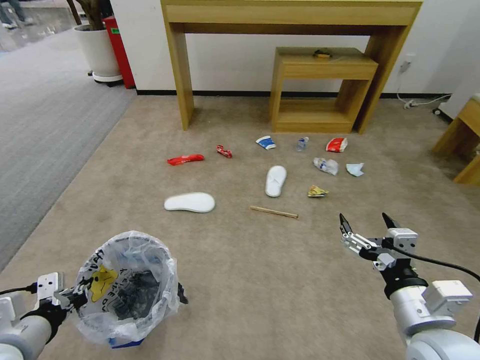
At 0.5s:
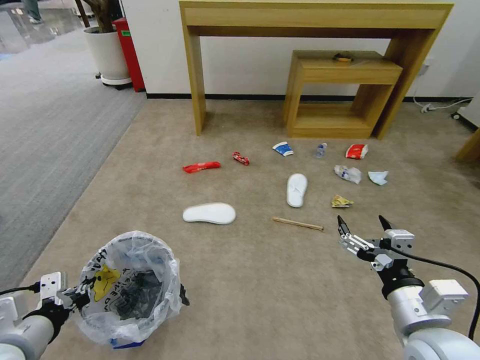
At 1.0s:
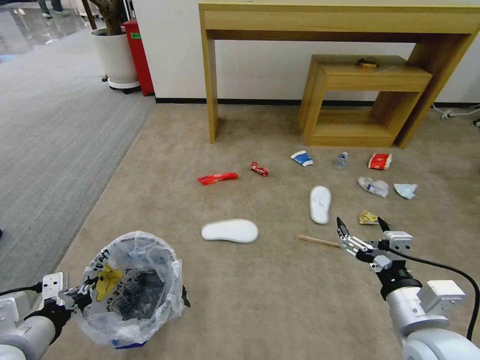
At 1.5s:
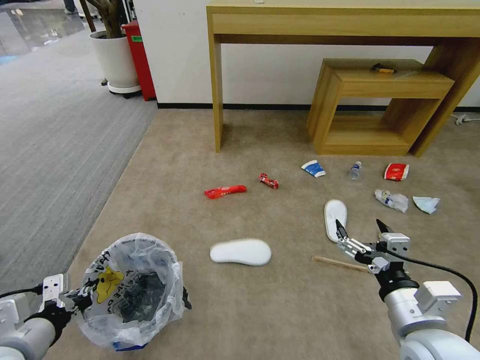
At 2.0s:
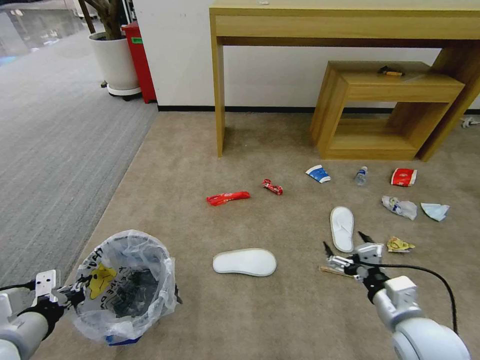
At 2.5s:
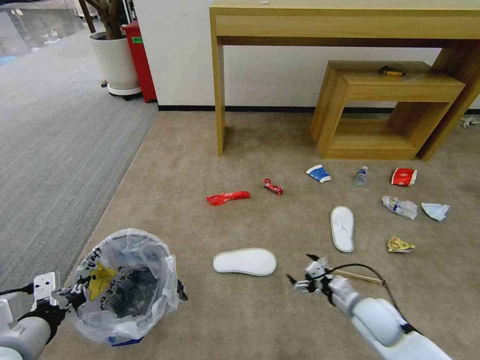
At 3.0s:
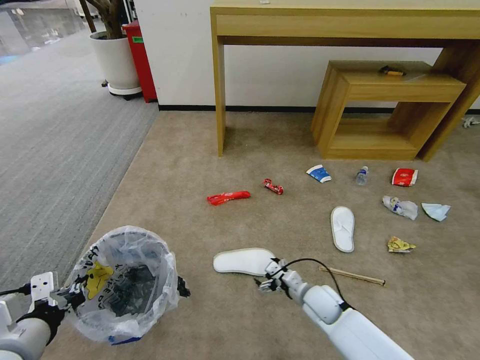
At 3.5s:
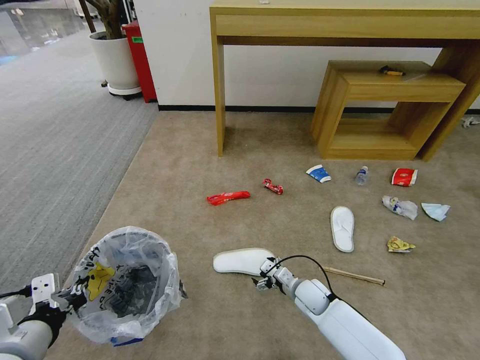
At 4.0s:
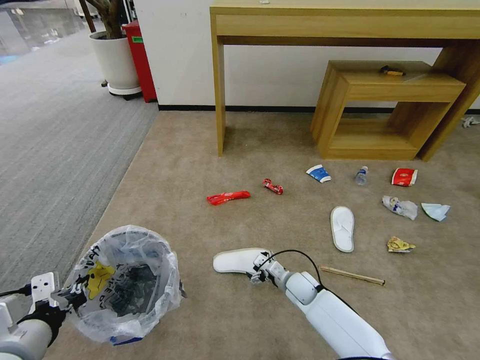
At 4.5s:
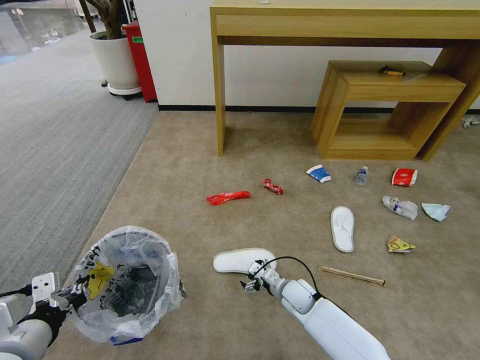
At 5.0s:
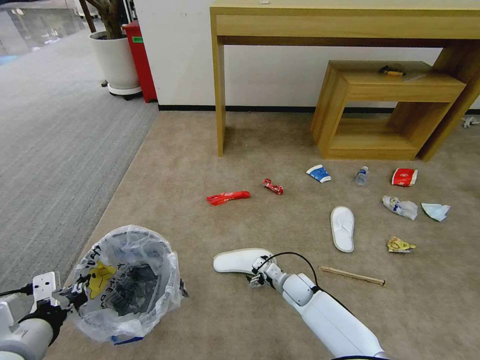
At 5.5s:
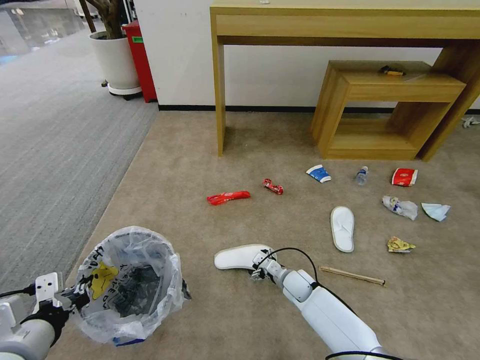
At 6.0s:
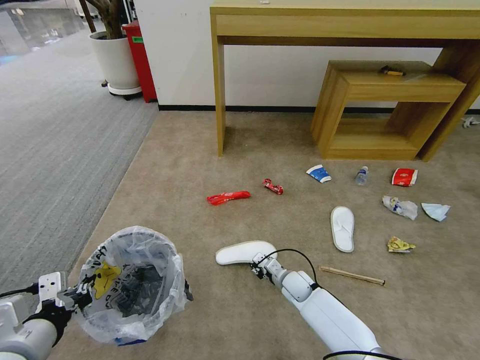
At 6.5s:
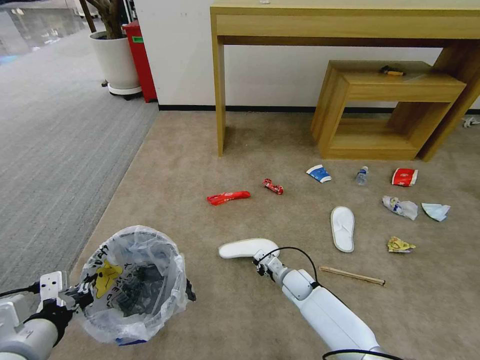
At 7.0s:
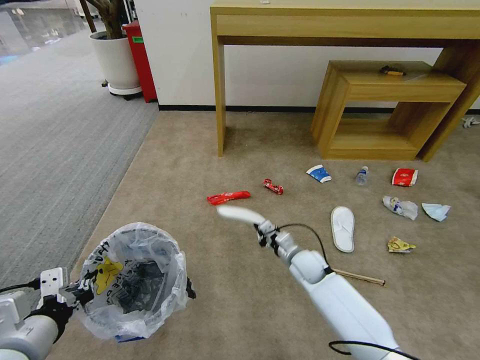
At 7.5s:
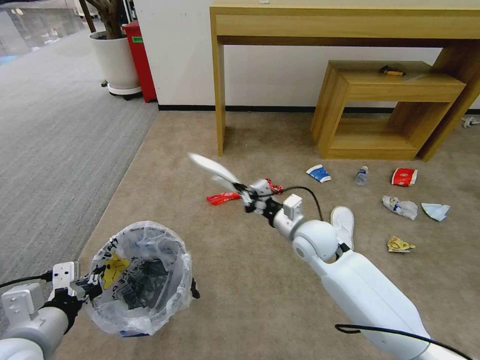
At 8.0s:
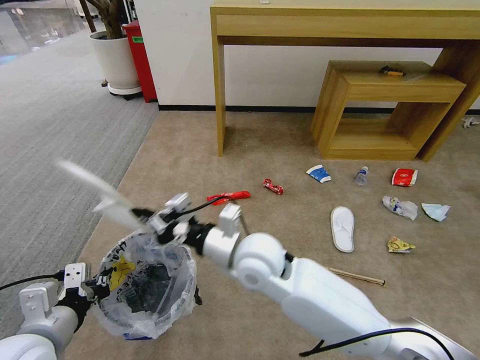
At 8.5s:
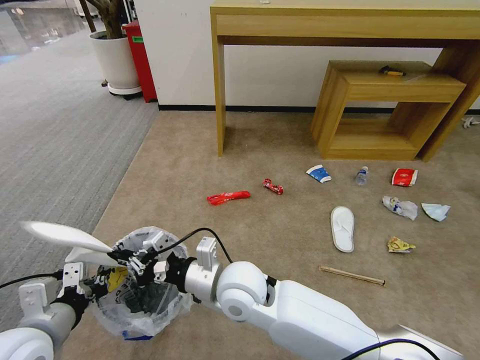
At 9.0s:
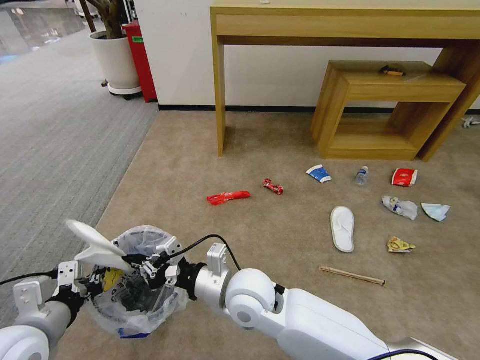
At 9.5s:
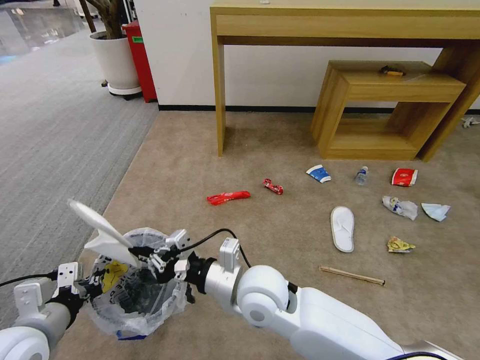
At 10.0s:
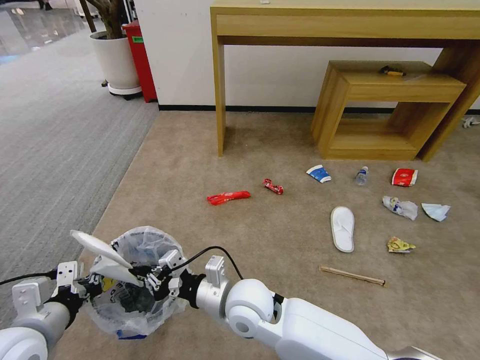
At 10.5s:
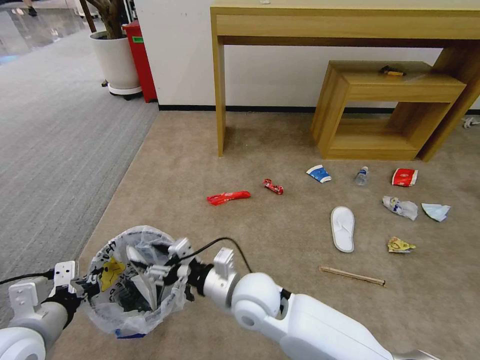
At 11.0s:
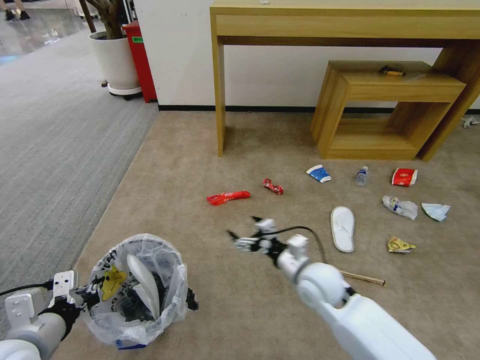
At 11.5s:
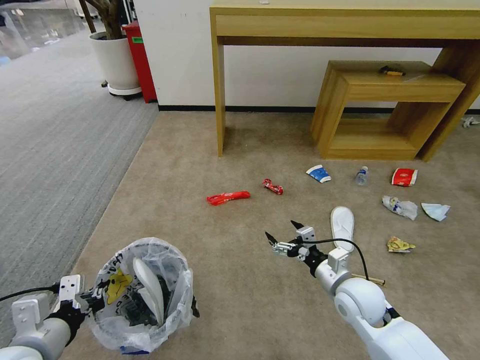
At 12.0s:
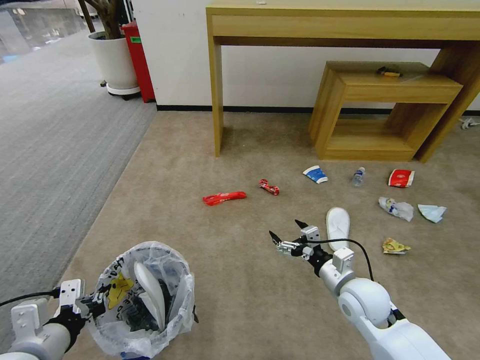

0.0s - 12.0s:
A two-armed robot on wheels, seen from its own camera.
Task of the whole recording: Pick up the trash bin and place the garbage on the floor into it.
0.0s - 2.0s: The right gripper is displaced downward by about 5 cm.
2.0s - 4.0s: The right gripper goes some 30 cm downward, forward and to the left; the left gripper shifts by approximately 5 cm.
4.0s - 6.0s: The right gripper closes up.
6.0s - 8.0s: The right gripper travels upward and to the left by approximately 35 cm, and closes.
8.0s - 10.0s: The right gripper heads downward and backward, covering about 10 cm.
10.0s - 12.0s: The right gripper heads to the right, covering about 25 cm, and opens its fingers.

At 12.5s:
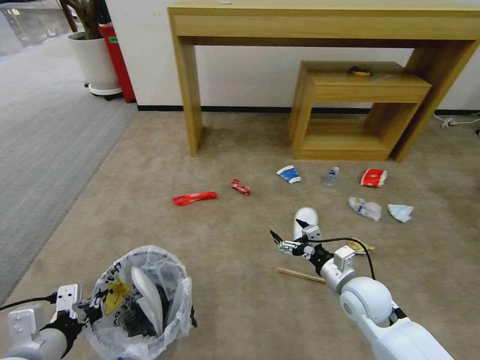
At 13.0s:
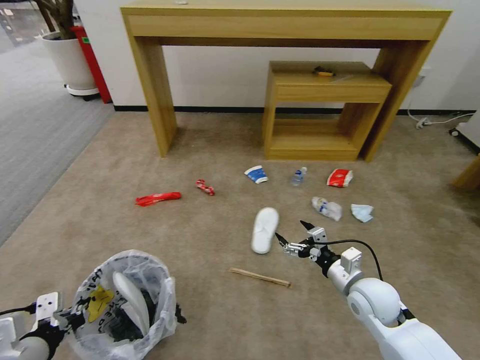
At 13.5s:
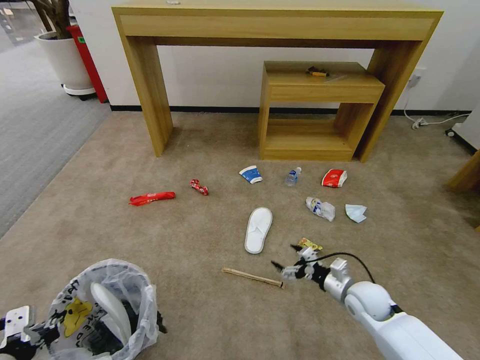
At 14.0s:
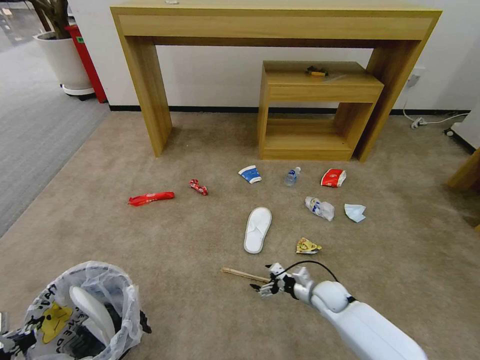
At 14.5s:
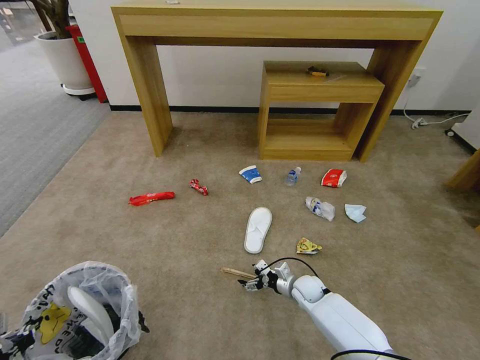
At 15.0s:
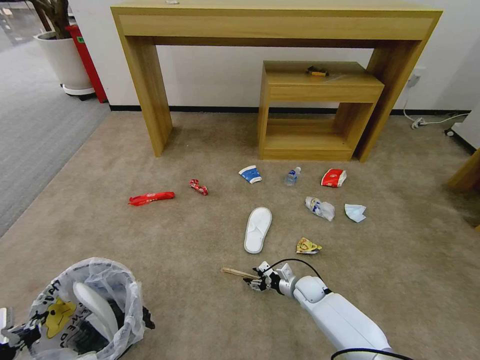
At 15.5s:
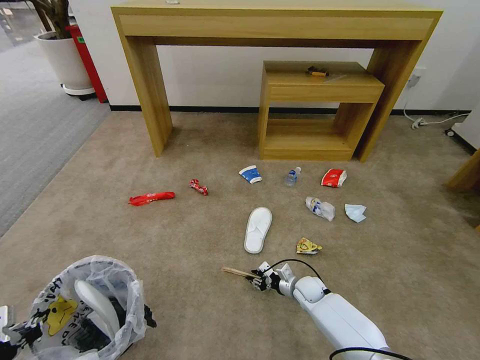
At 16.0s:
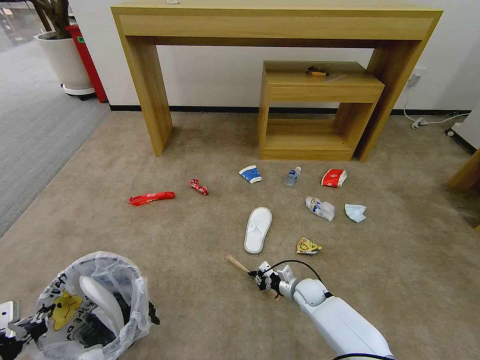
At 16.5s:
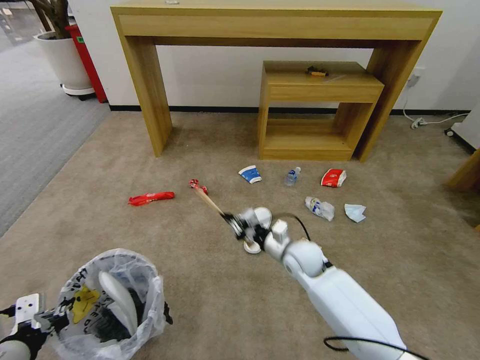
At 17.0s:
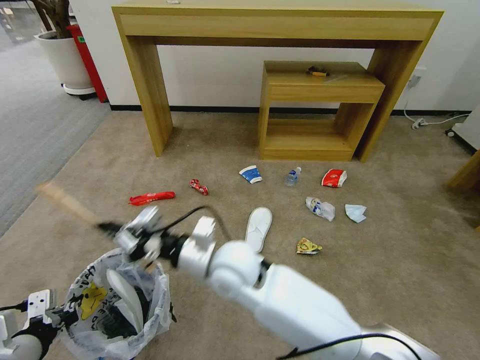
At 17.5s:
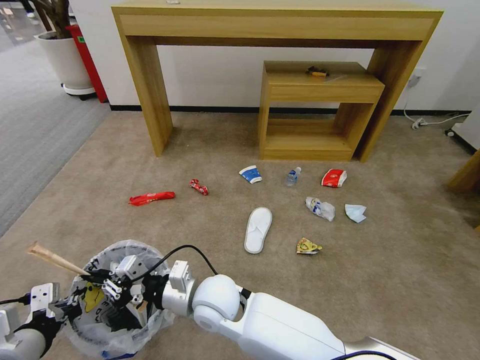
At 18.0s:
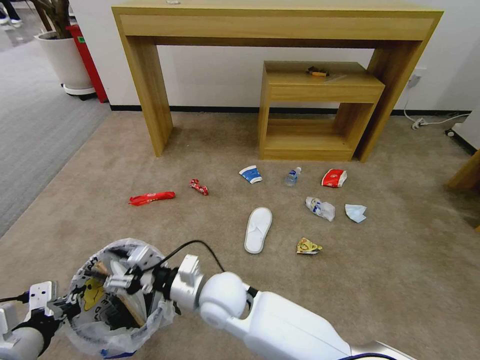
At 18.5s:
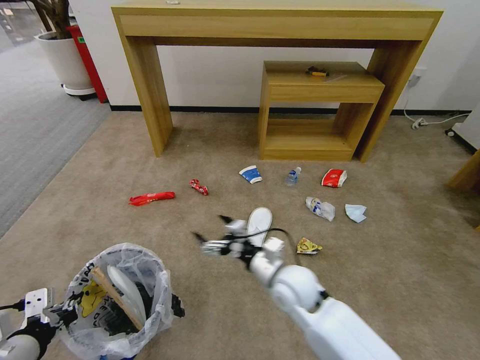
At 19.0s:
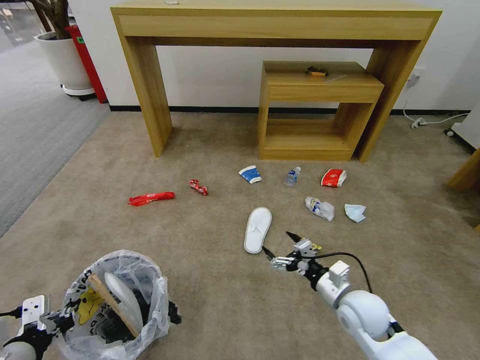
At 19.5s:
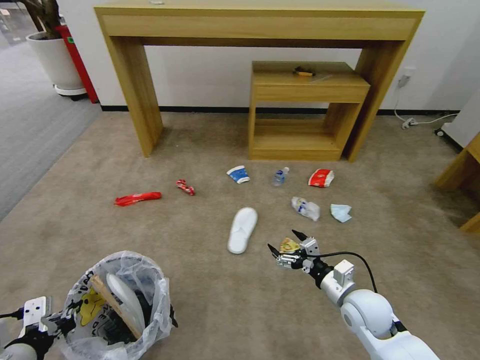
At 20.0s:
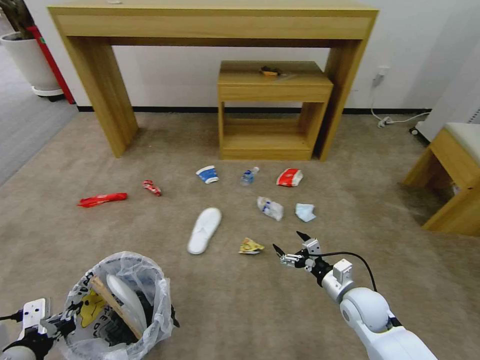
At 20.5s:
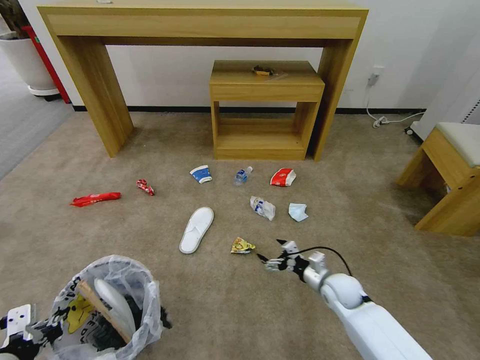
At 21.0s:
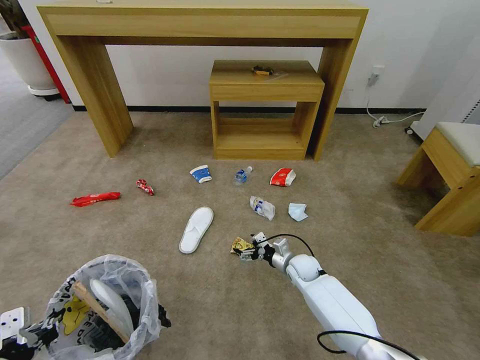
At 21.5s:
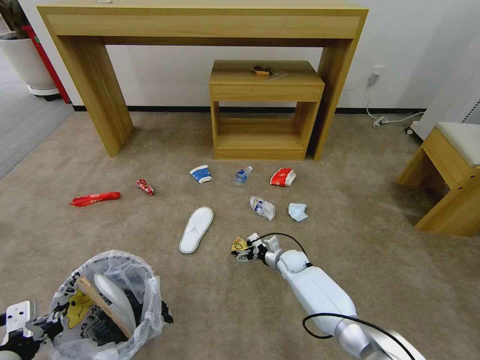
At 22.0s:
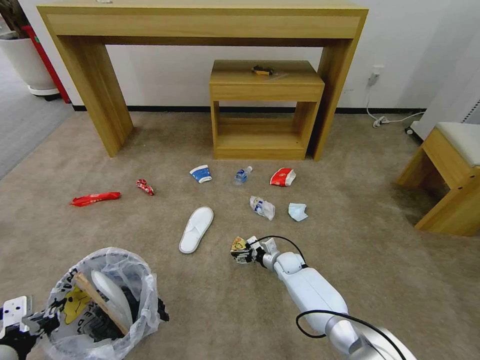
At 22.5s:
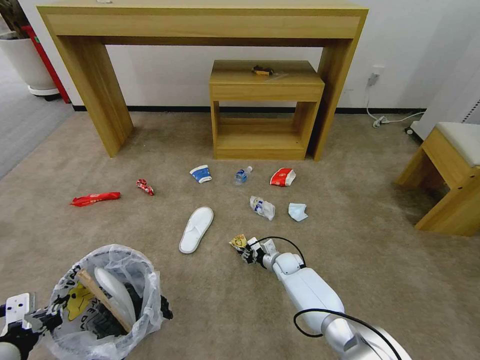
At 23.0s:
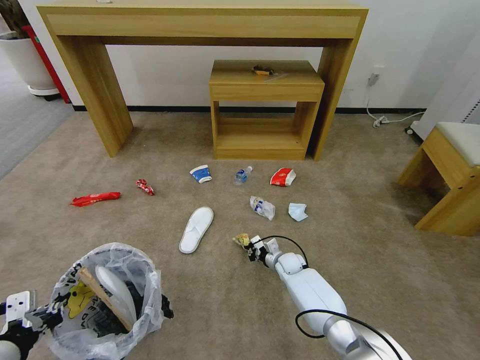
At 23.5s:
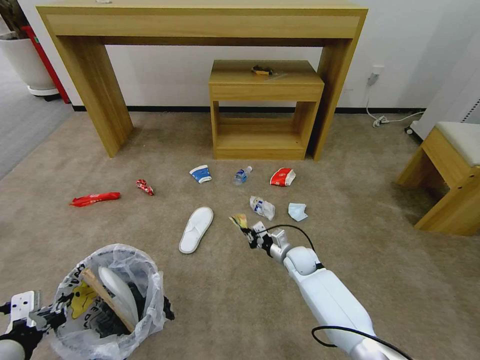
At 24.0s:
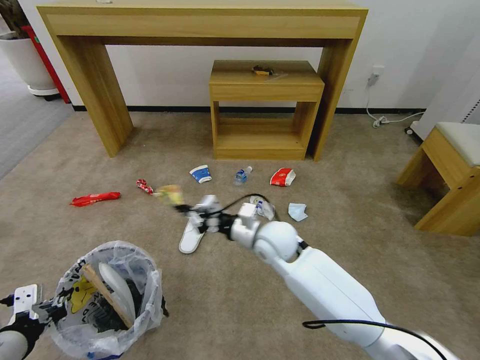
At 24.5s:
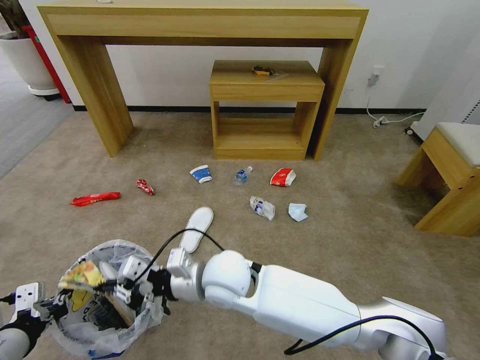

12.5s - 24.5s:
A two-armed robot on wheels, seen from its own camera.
Task of the whole recording: Pick up the trash bin and place the garbage on the floor into it.
12.5s - 14.5s: The left gripper moves to the left, about 10 cm. Meanwhile the right gripper goes roughly 20 cm downward and forward.
14.5s - 16.5s: The right gripper shifts about 20 cm upward, and closes. The left gripper moves about 5 cm.
16.5s - 18.5s: The right gripper is displaced backward by about 10 cm, moves some 20 cm to the left and comes back, and opens its fingers.
18.5s - 20.5s: The right gripper shifts roughly 20 cm to the right and downward.
20.5s - 22.5s: The right gripper is displaced forward, to the left and downward by some 20 cm, and closes up.
22.5s - 24.5s: The right gripper is displaced upward, to the left and backward by approximately 40 cm.

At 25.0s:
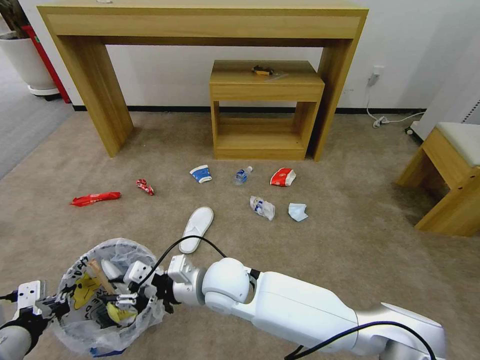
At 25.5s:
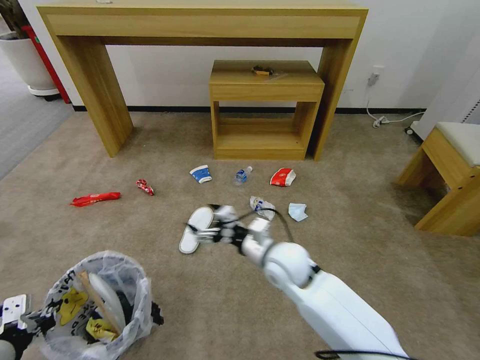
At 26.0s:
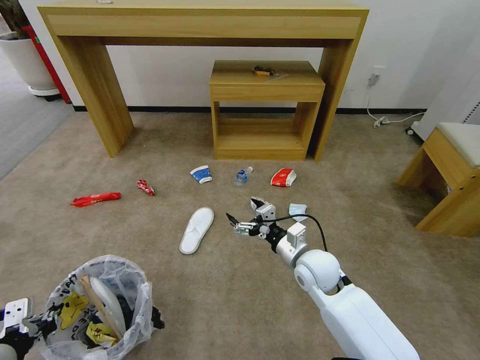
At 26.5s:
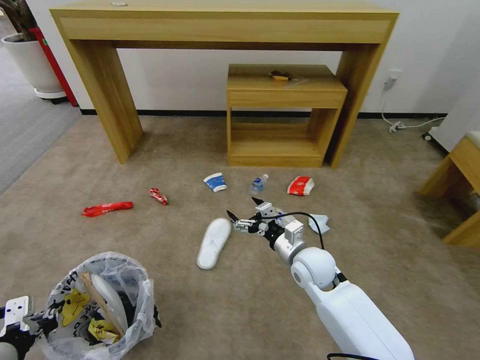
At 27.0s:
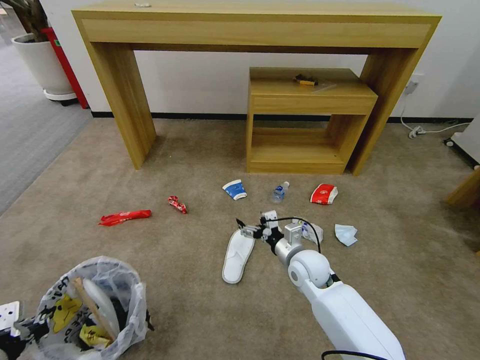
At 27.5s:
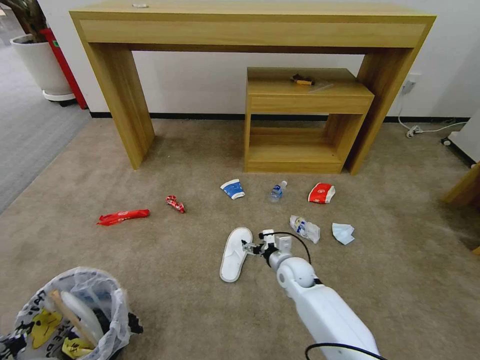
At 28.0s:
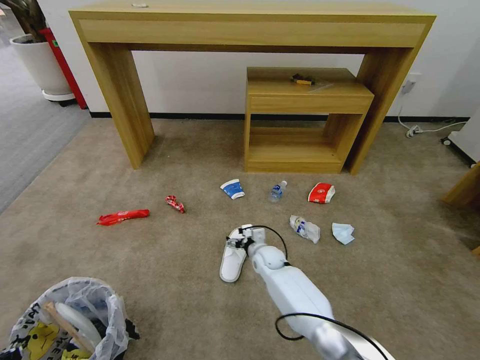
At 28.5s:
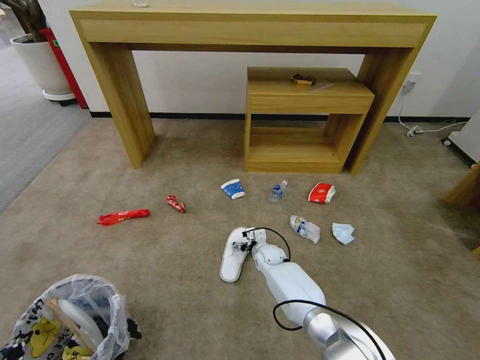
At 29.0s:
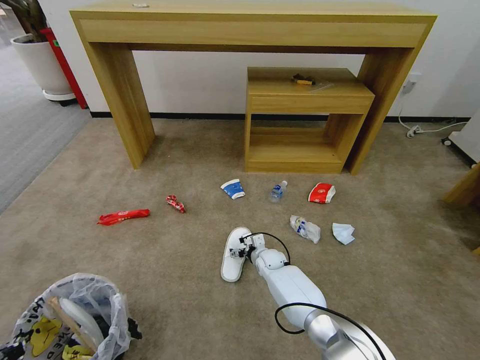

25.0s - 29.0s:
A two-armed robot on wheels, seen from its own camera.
Task of the whole recording: Pick up the trash bin and place the garbage on the floor into it.
25.0s - 27.0s: The right gripper travels to the right and downward by about 20 cm, and opens up.
27.0s - 29.0s: The right gripper travels downward and forward by approximately 20 cm. The left gripper changes place by roughly 5 cm.
